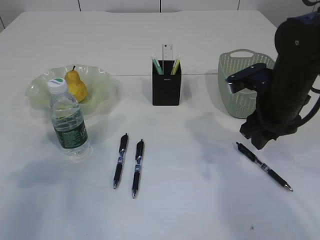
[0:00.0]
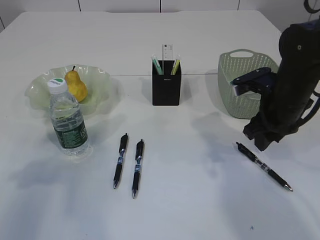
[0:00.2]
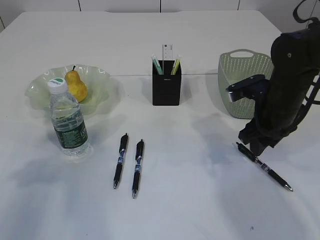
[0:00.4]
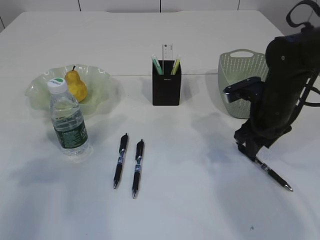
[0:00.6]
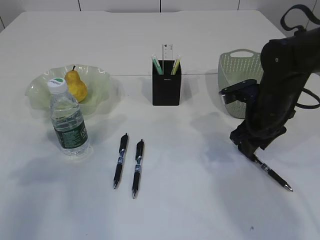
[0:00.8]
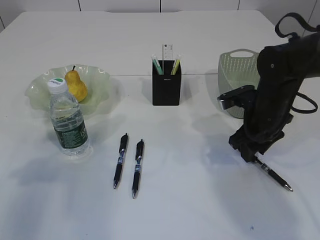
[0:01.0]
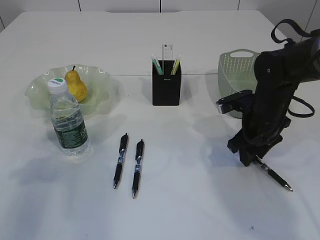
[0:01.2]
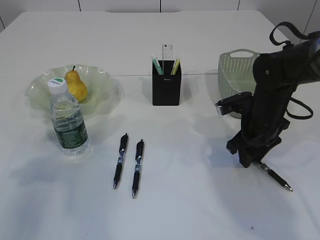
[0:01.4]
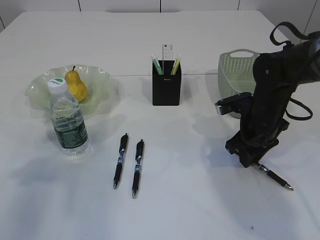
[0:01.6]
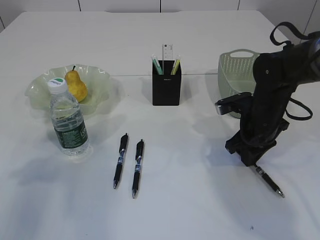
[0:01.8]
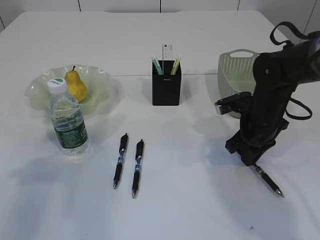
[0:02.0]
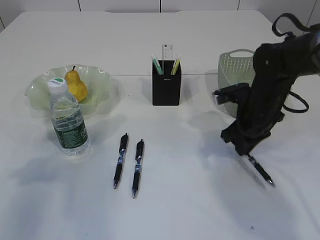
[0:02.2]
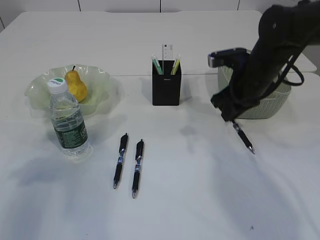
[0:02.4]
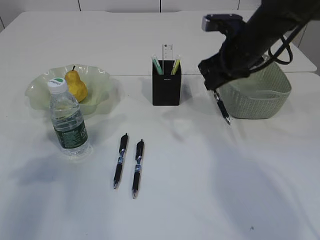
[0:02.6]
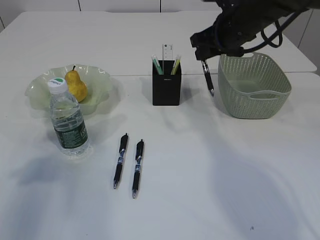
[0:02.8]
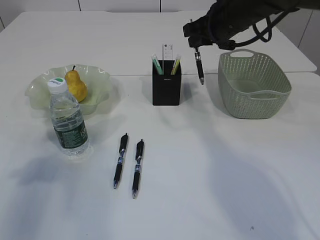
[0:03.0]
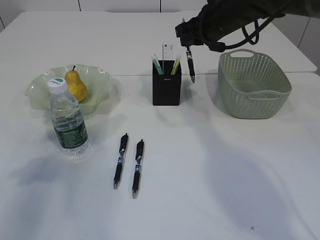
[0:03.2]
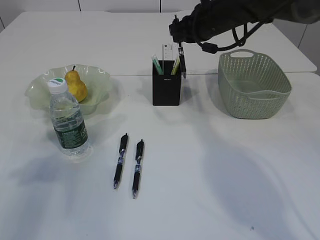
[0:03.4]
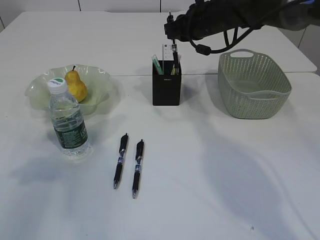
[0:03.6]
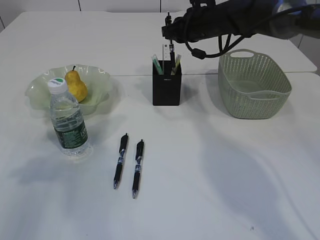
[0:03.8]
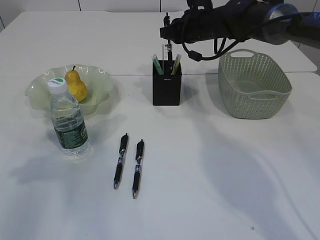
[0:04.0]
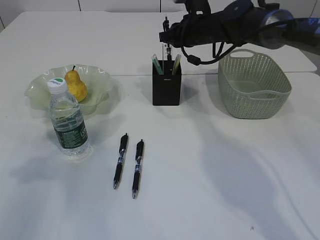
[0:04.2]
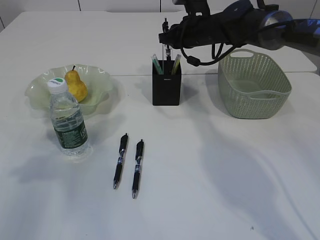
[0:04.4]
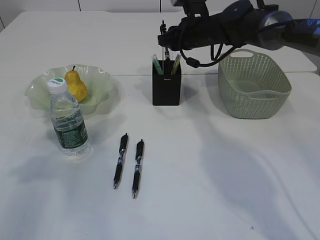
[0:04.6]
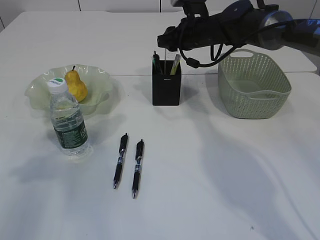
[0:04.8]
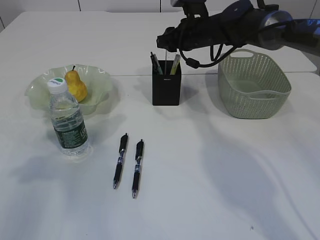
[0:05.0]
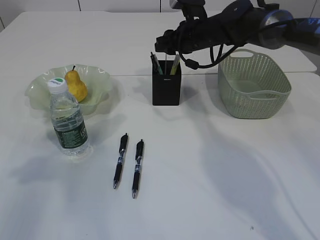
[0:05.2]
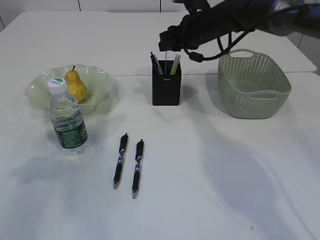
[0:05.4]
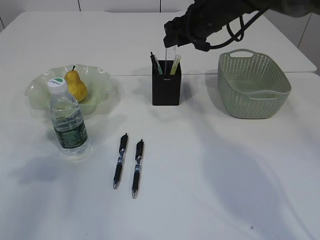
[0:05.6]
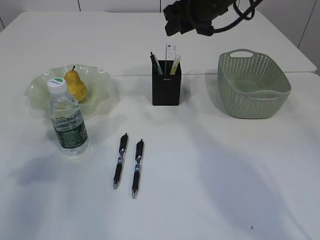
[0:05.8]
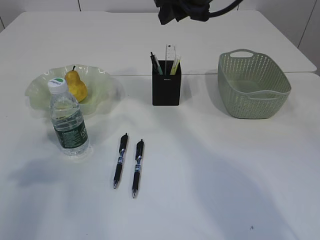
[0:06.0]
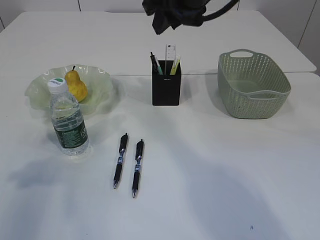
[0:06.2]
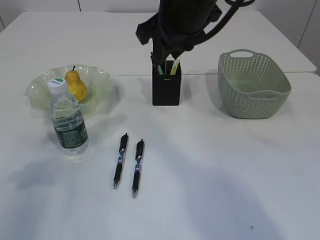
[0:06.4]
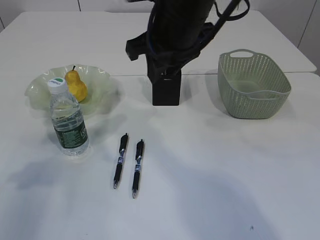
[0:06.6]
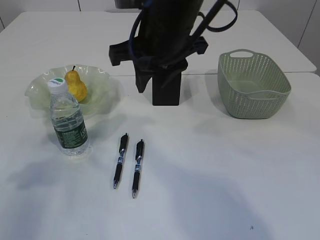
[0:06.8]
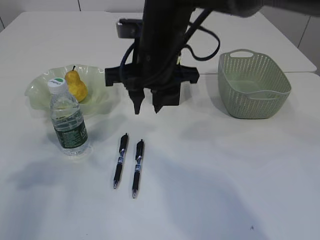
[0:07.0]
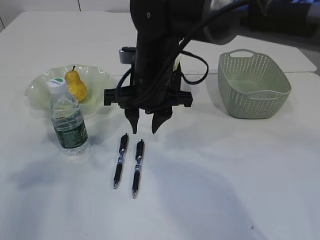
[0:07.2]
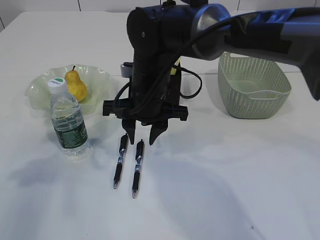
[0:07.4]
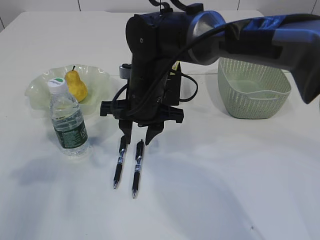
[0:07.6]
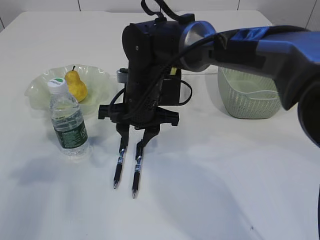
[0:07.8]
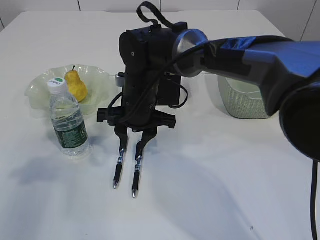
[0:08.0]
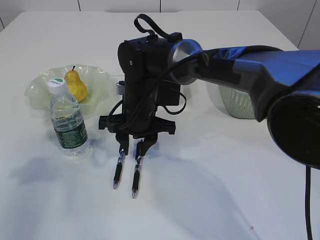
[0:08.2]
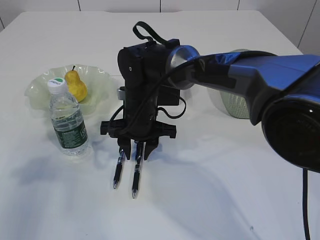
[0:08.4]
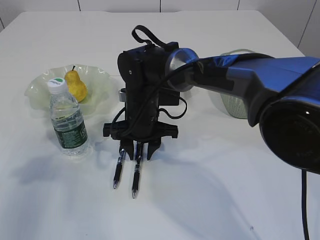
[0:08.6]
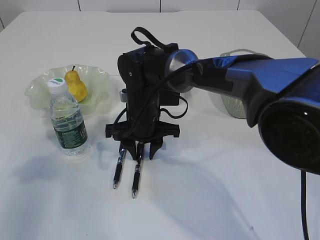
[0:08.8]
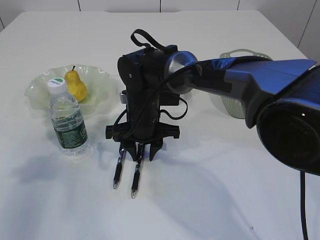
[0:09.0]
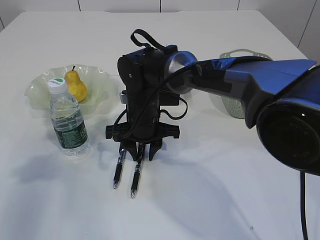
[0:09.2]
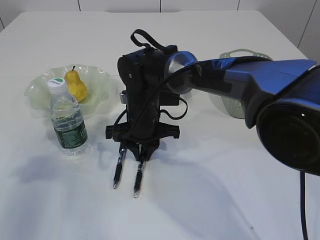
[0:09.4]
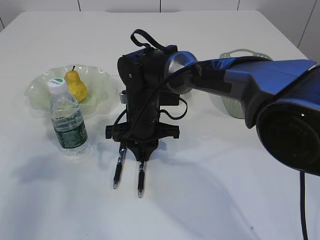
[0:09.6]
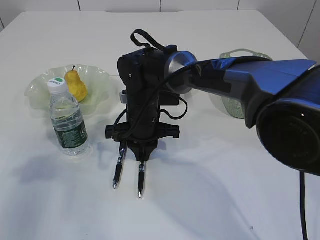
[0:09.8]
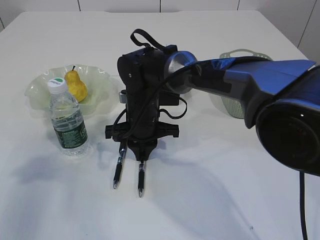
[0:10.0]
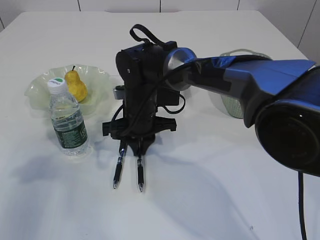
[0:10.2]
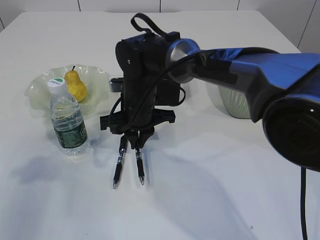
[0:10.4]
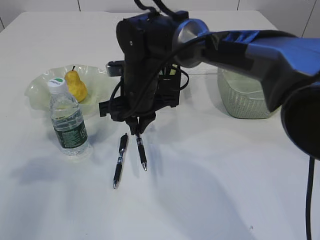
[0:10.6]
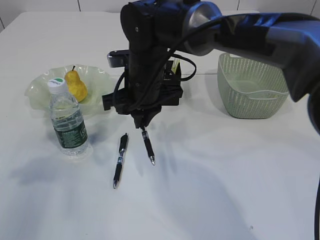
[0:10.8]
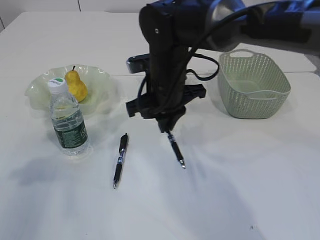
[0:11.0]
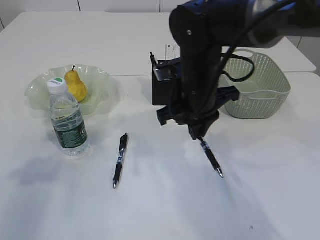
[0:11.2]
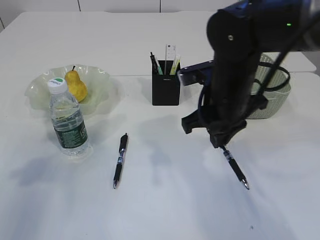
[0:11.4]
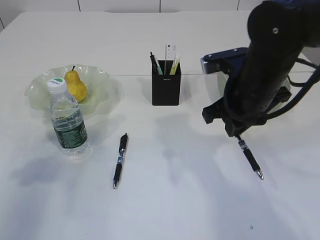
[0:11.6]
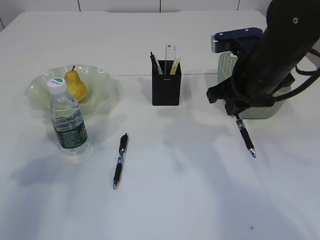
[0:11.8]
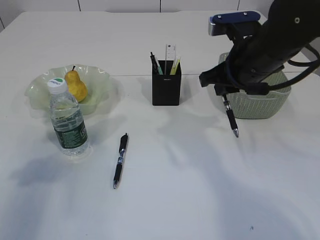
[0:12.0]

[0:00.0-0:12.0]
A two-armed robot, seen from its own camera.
Step, 0:00.0 to 0:02.6: Pick up the pen with right arm.
Step, 0:02.8 to 0:05.4: Place the pen into the pen holder.
Step, 0:05.6 to 0:10.8: Pick up the pen with right arm.
0:00.0 to 0:01.6: The right gripper shifts some 10 cm downward.
0:01.6 to 0:03.0: The right gripper shifts about 20 cm upward and forward, and closes.
0:03.0 to 0:04.4: The right gripper heads forward and downward, covering some 10 cm.
0:04.4 to 0:06.0: The right gripper goes roughly 15 cm upward and backward, and opens its fingers.
0:06.0 to 0:07.6: The right gripper moves downward, to the left and backward, approximately 20 cm.
0:07.6 to 0:09.0: The right gripper goes roughly 5 cm downward.
0:09.0 to 0:10.4: The right gripper closes up.
0:10.4 to 0:12.0: The right gripper is displaced to the right and upward by some 20 cm.

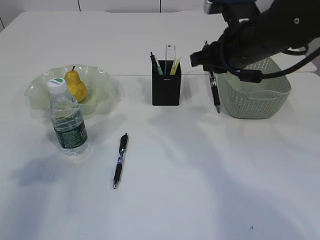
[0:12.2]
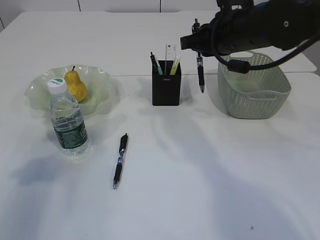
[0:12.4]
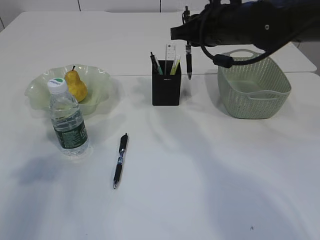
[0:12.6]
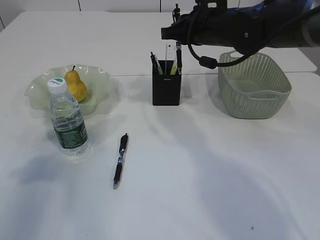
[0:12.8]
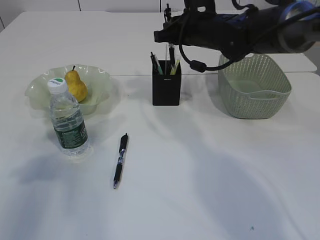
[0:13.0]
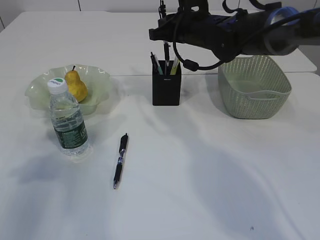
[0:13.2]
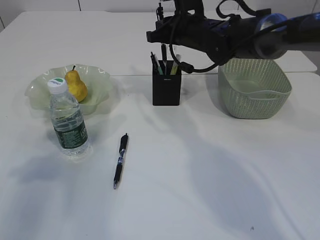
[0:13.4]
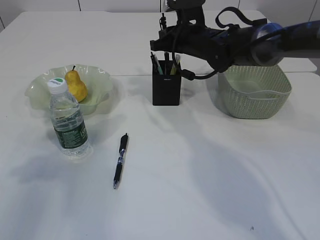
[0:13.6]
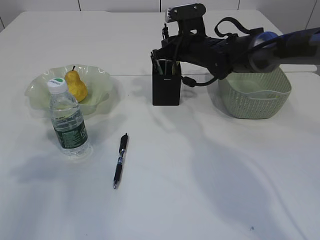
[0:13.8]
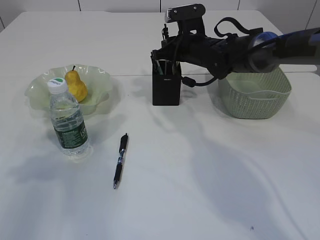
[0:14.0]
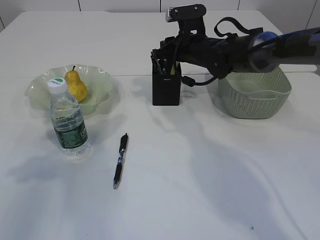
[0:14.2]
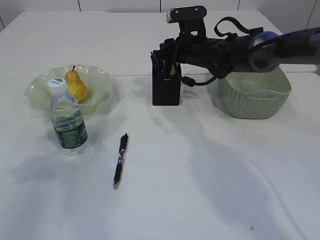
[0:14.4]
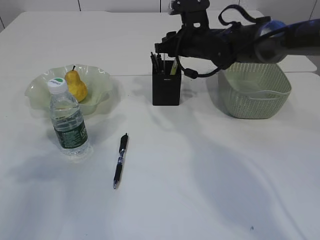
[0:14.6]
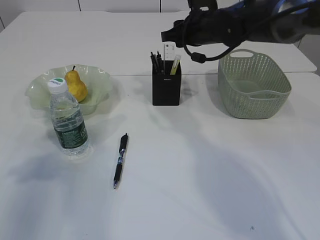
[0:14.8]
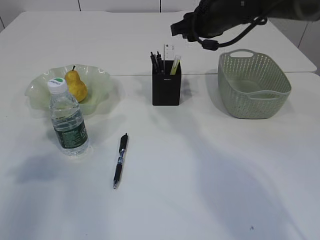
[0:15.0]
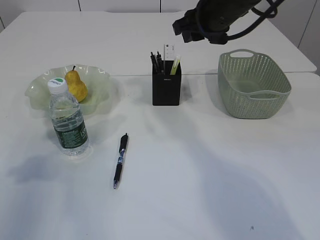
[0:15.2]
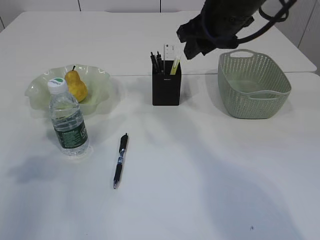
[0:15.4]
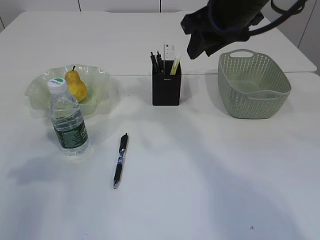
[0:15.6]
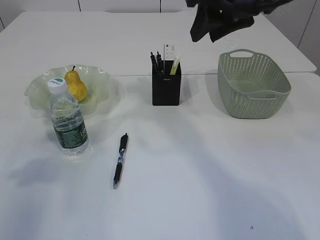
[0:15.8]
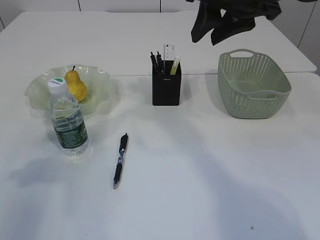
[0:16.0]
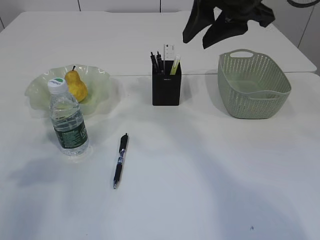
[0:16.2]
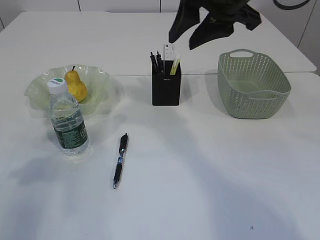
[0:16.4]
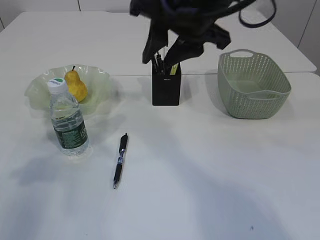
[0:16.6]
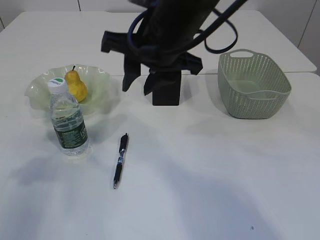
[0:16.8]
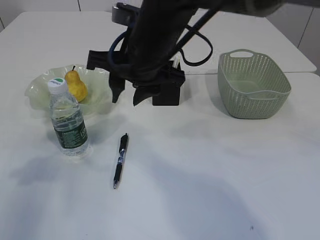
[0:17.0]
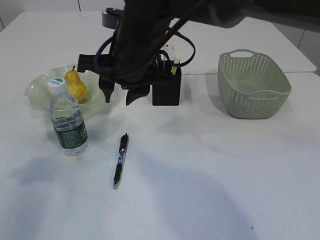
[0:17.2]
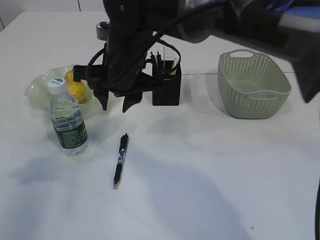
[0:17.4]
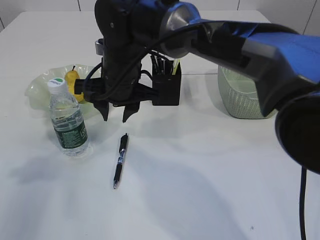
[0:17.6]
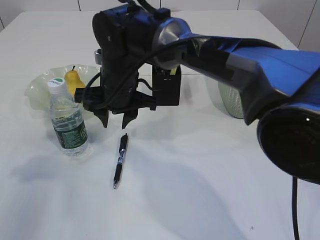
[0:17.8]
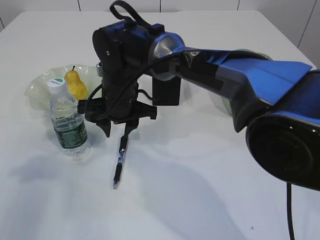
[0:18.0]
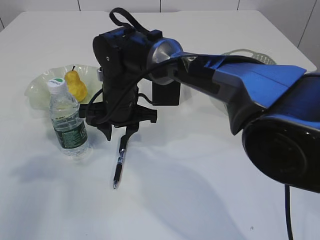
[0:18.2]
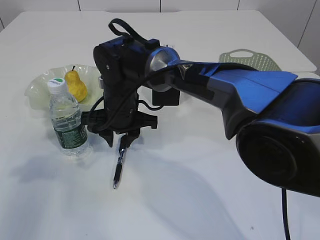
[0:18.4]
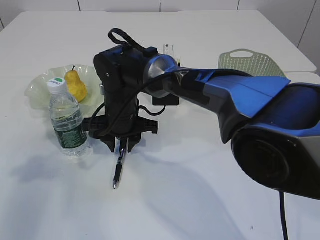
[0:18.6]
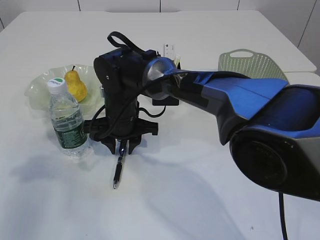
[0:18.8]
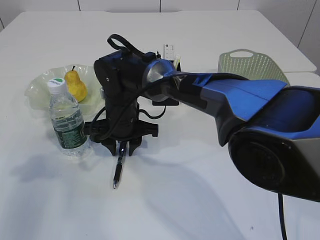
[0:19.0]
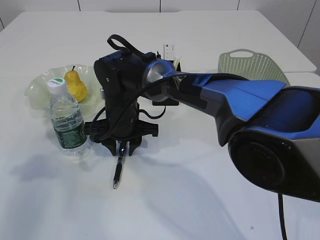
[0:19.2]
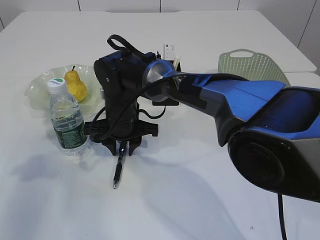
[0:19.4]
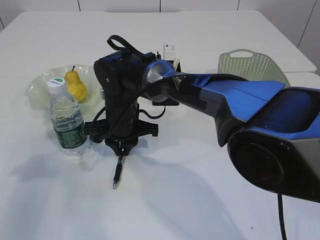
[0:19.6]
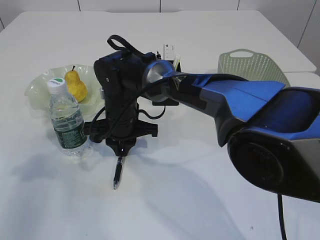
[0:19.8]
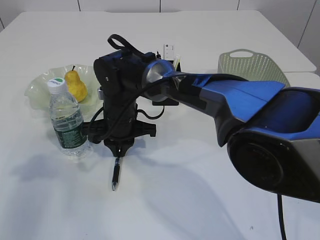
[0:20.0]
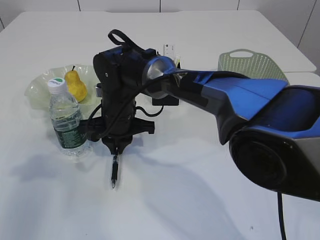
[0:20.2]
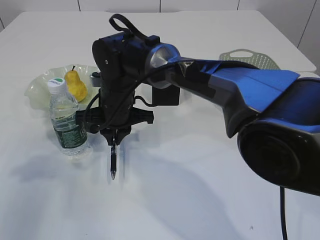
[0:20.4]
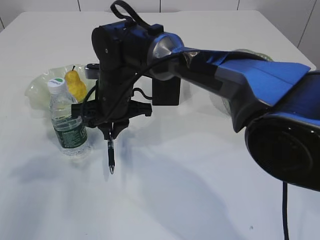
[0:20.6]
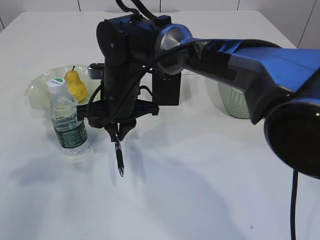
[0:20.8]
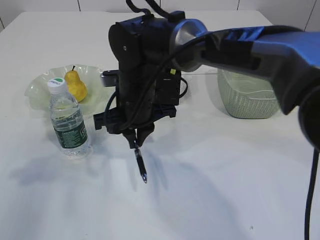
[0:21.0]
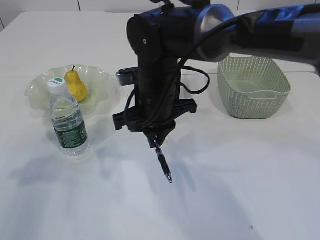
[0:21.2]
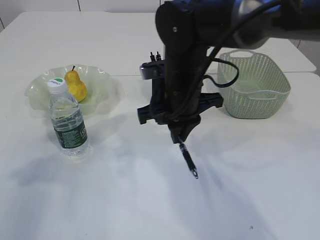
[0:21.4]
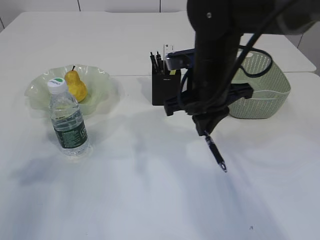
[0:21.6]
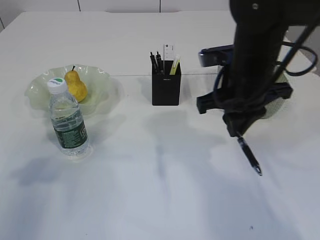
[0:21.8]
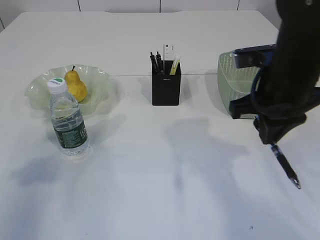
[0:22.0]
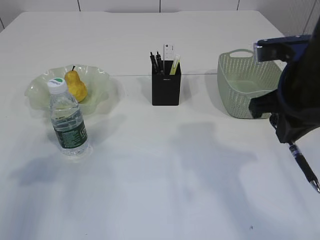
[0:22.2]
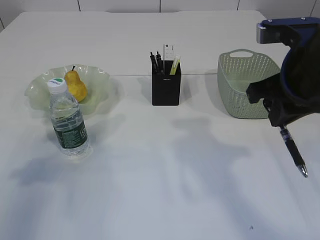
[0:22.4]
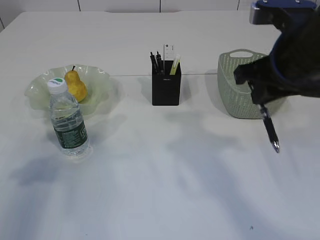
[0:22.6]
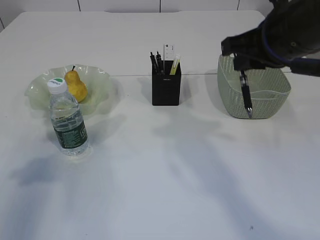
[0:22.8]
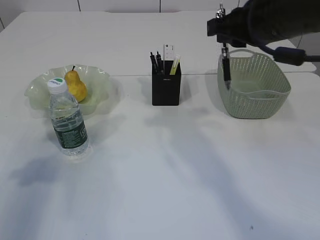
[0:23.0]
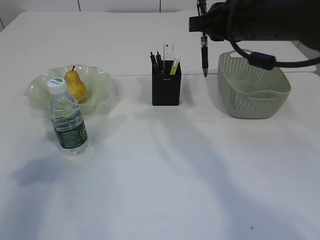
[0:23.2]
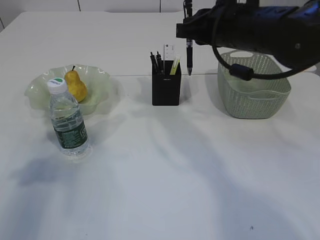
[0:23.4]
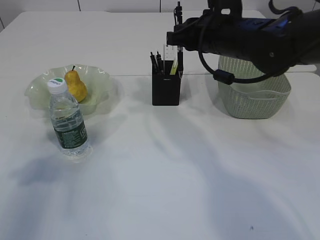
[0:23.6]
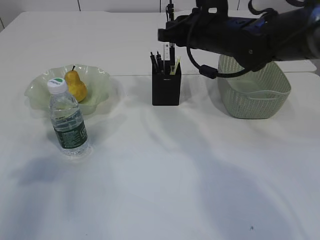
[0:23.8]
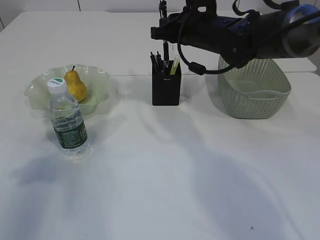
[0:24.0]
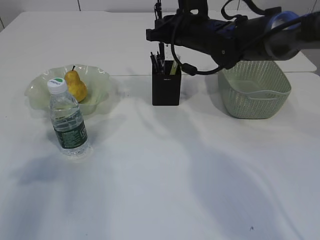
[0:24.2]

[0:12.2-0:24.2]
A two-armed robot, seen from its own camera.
Step, 0:12.2 to 0:16.2: Place the pen into the pen holder.
Step, 0:16.4 to 0:20.6: Pick up the pen with right arm.
0:12.2 to 0:13.8: The right gripper shifts about 15 cm forward and downward.
0:13.8 to 0:15.2: The right gripper is displaced upward and backward by approximately 15 cm, and opens up.
0:15.2 to 0:16.6: The right gripper heads backward and to the left, covering roughly 10 cm.
0:16.6 to 0:18.2: The right gripper travels downward and to the left by about 20 cm.
0:18.2 to 0:19.8: The right gripper closes its fingers.
0:19.8 to 0:21.2: The right gripper heads upward and to the right, covering some 10 cm.
0:21.2 to 0:22.6: The right gripper shifts some 20 cm to the right, upward and backward.
0:22.6 to 0:24.2: The right gripper shifts some 20 cm forward and to the left.
